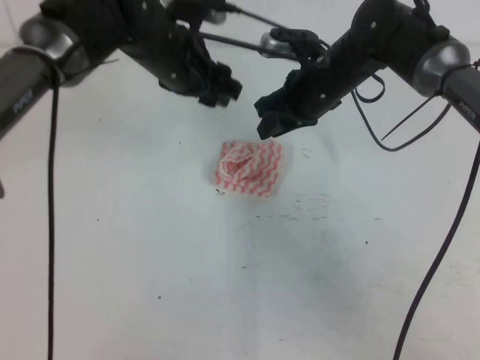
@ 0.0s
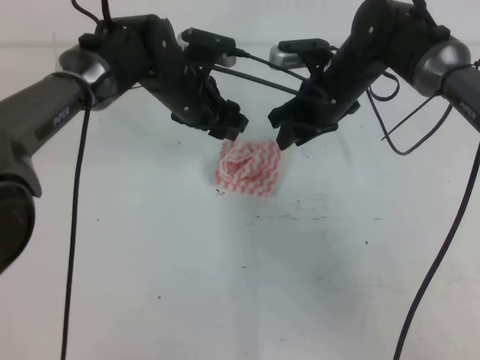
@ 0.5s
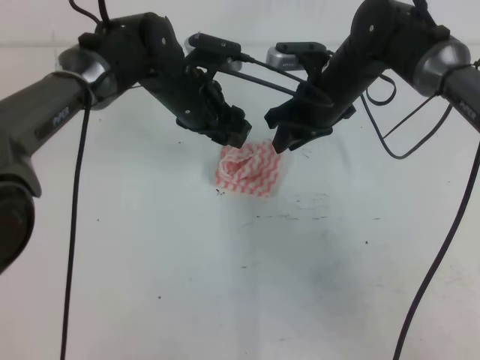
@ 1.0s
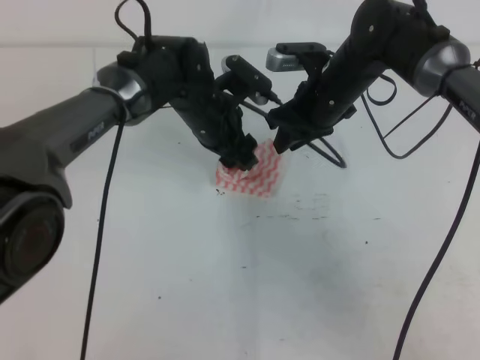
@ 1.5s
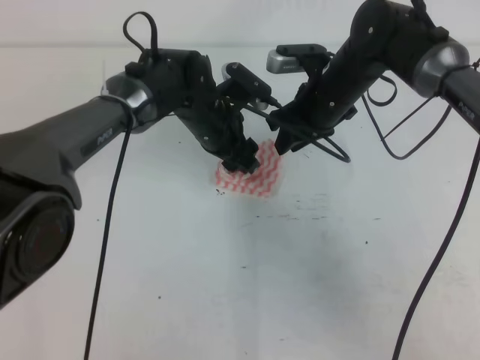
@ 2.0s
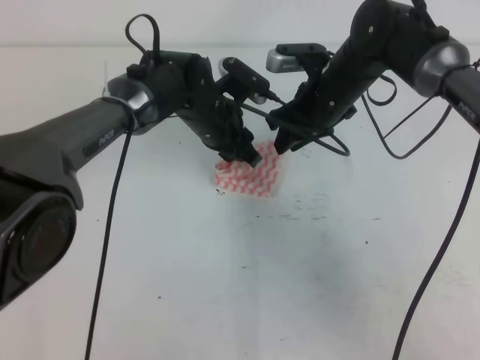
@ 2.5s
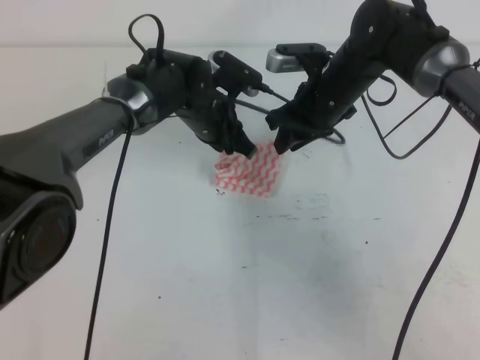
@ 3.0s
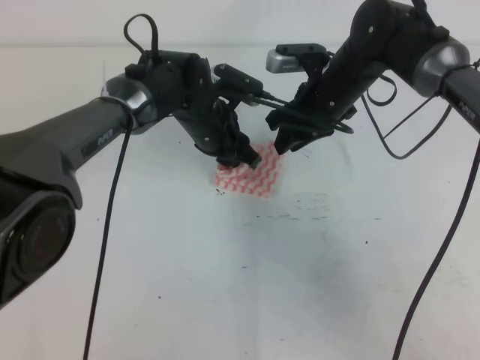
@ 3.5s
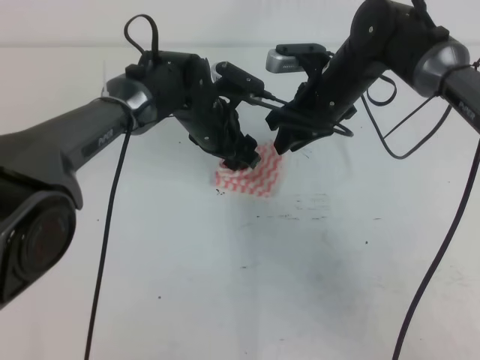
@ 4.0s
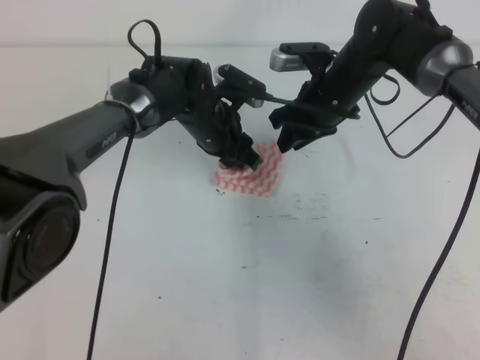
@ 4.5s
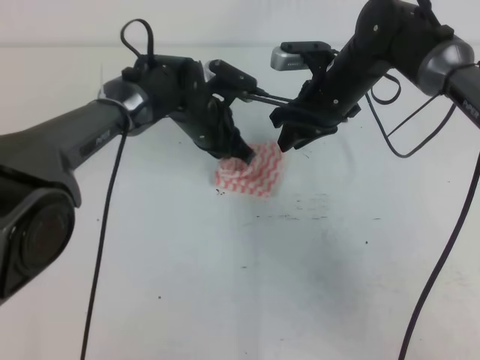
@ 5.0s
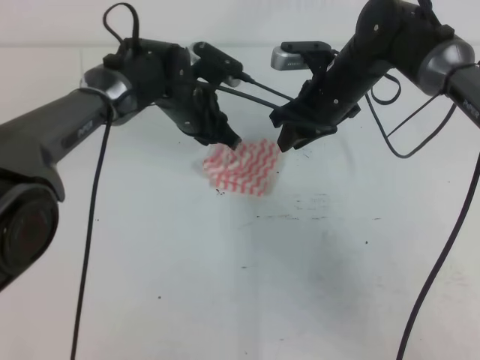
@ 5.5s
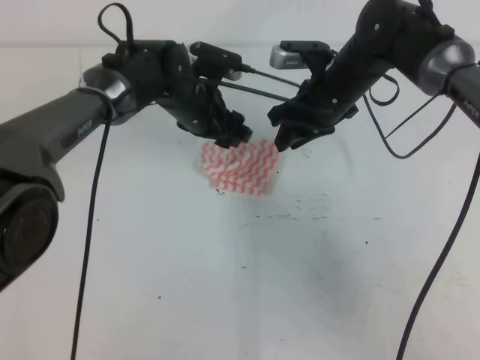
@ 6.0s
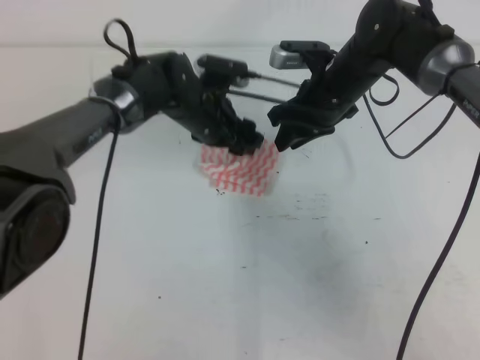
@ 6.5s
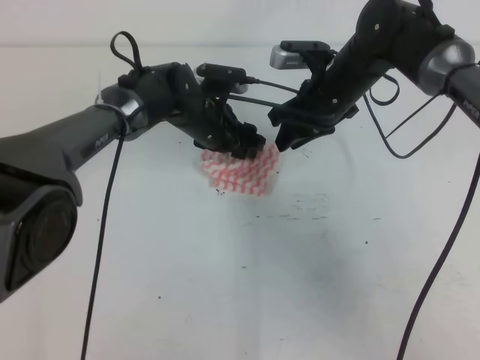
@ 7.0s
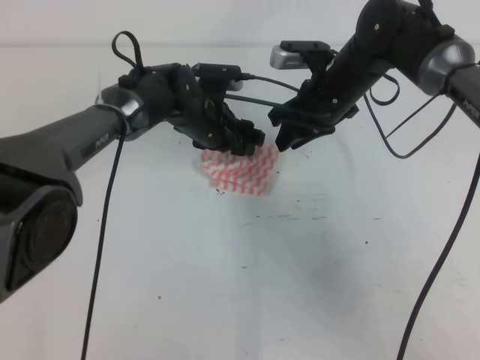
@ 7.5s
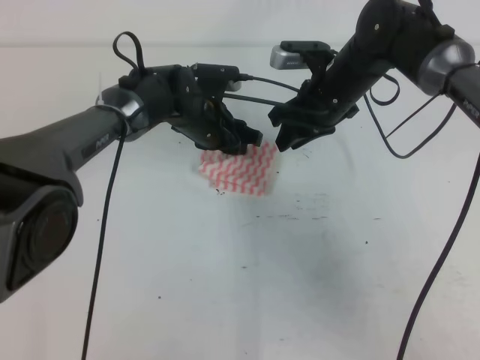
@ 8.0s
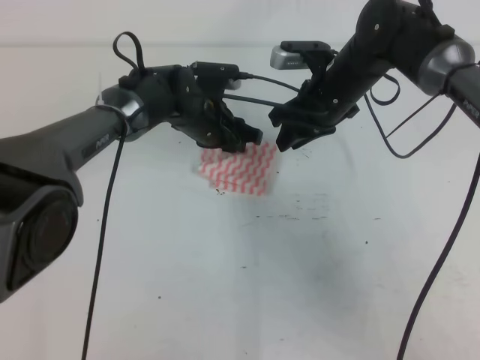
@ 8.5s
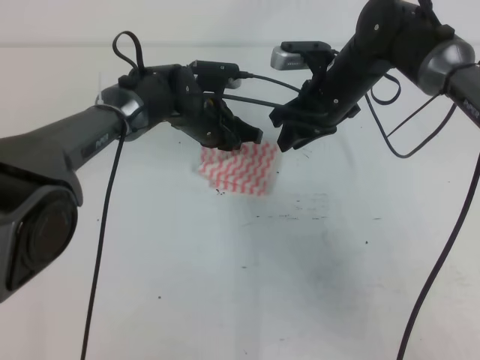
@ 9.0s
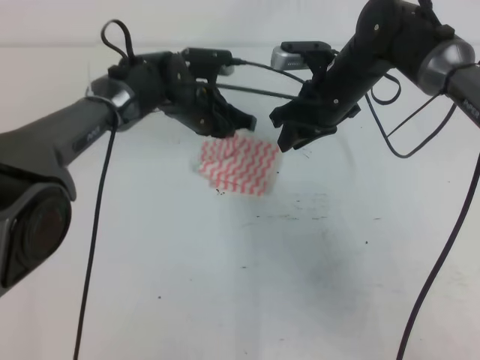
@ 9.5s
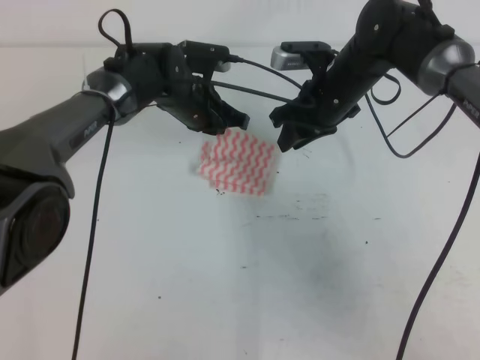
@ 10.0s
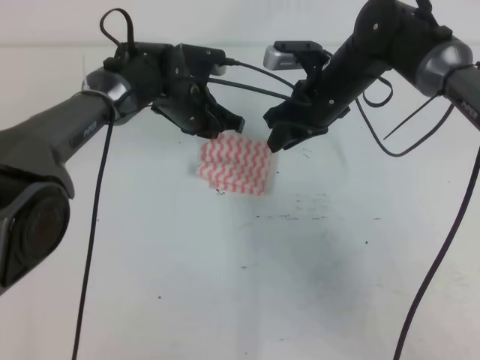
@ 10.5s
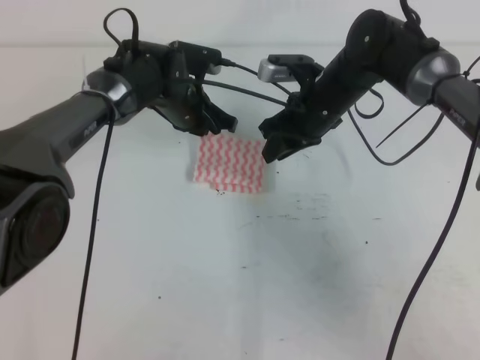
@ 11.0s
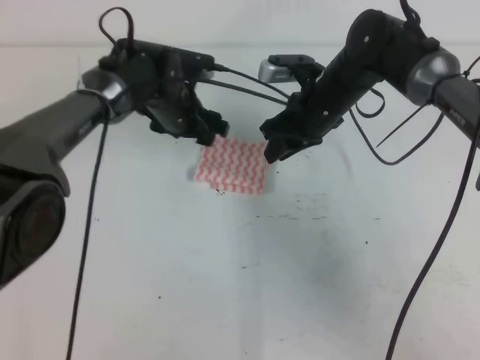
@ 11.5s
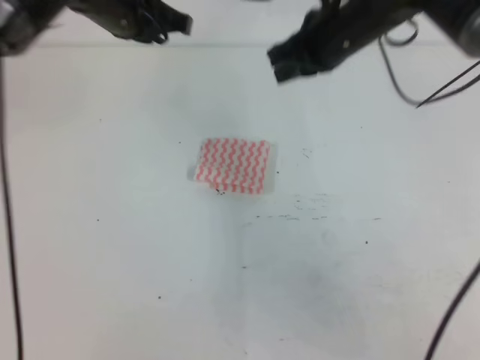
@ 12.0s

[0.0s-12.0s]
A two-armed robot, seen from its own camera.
0.0s to 2.0s: The left gripper heads downward, covering about 10 cm.
2.0s to 4.0s: The left gripper closes, then reopens.
4.0s to 6.0s: The left gripper closes, then reopens.
6.0s to 8.0s: There are only small adjustments of the grippers.
8.0s to 10.0s: The left gripper closes up.
10.0s to 12.0s: The right gripper is displaced upward by roughly 10 cm, and closes its fingers, while the left gripper goes roughly 15 cm upward and to the left, and opens, then closes once more.

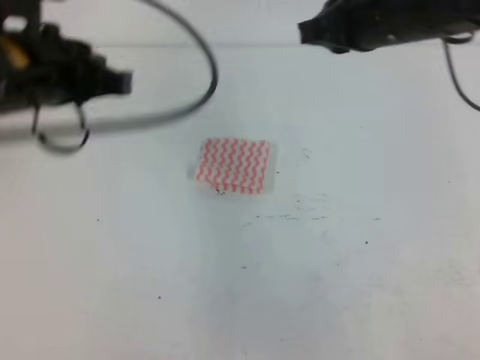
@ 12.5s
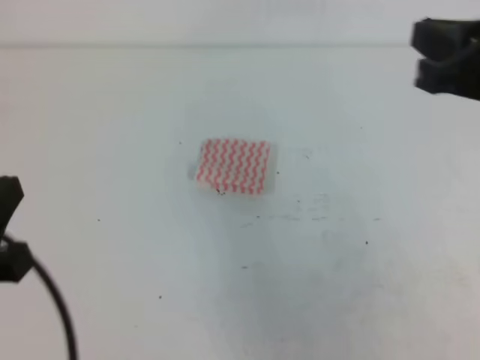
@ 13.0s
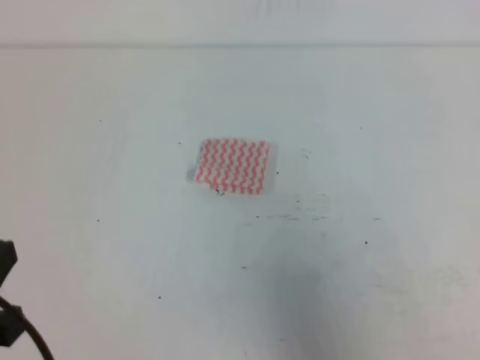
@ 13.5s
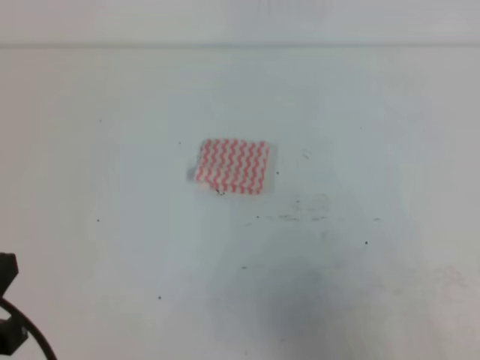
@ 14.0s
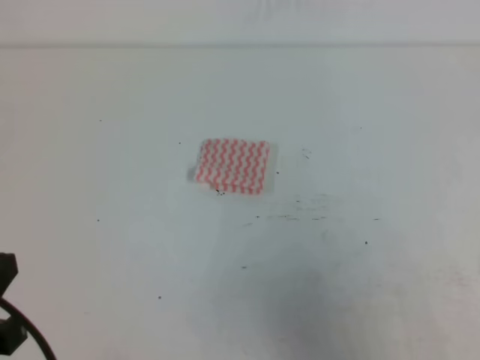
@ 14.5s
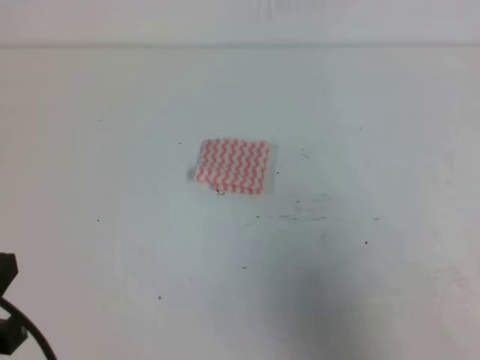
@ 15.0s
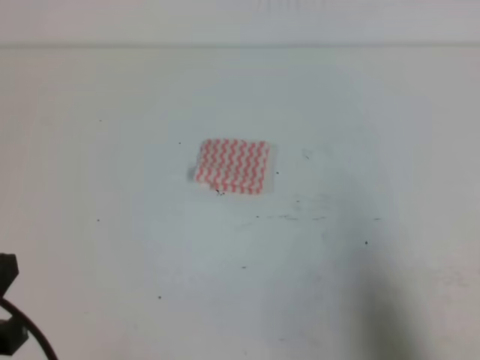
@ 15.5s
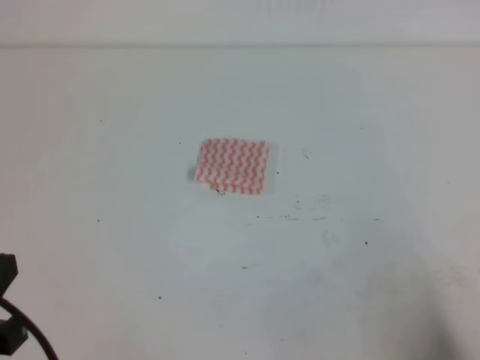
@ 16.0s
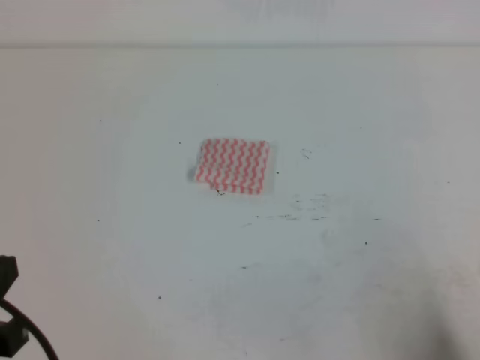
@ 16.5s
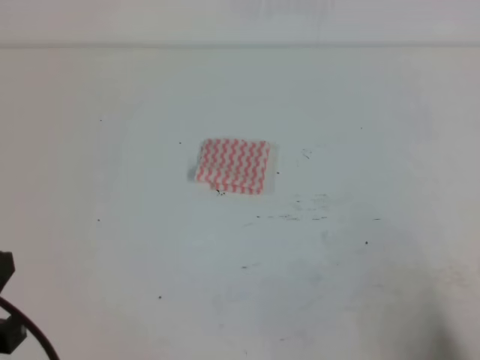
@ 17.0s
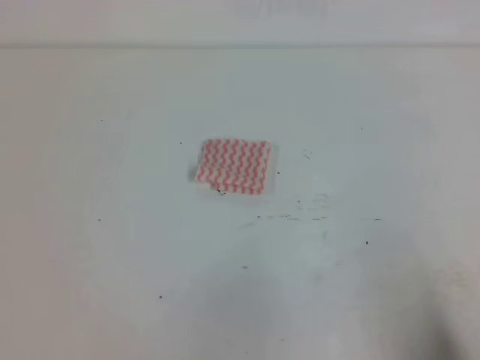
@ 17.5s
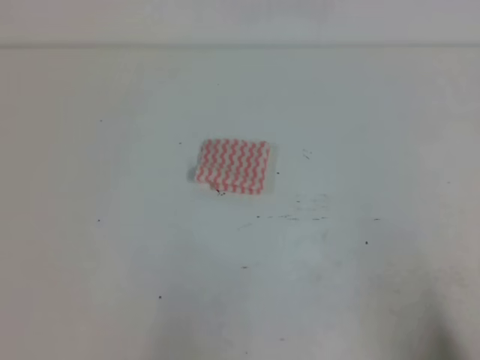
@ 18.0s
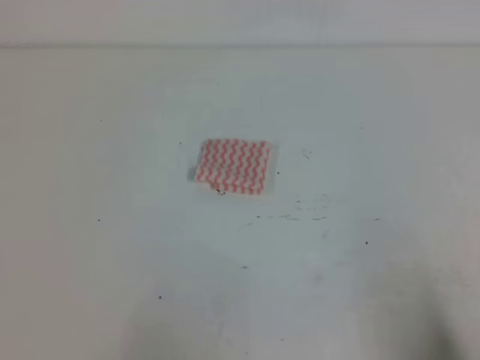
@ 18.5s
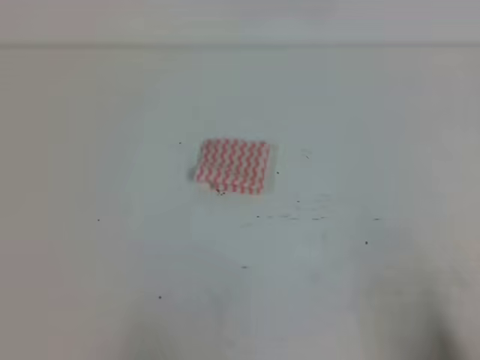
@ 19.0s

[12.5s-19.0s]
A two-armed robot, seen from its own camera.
Step, 12.5s to 19.0s: Fold the towel.
12.5s to 14.5s: The right gripper is displaced backward and to the right by some 30 cm; the left gripper is displaced backward and downward by some 20 cm.
14.5s to 17.0s: The right gripper moves downward, about 15 cm.
17.0s to 19.0s: The left gripper heads downward, covering some 10 cm.
